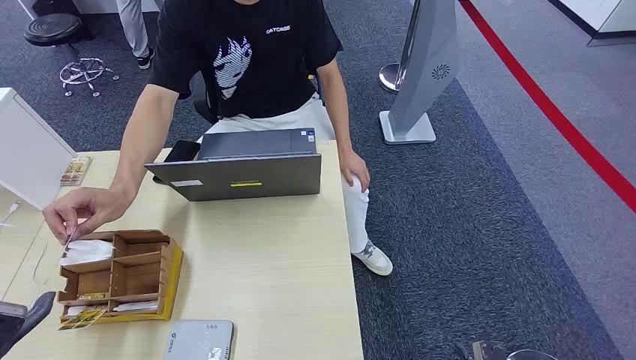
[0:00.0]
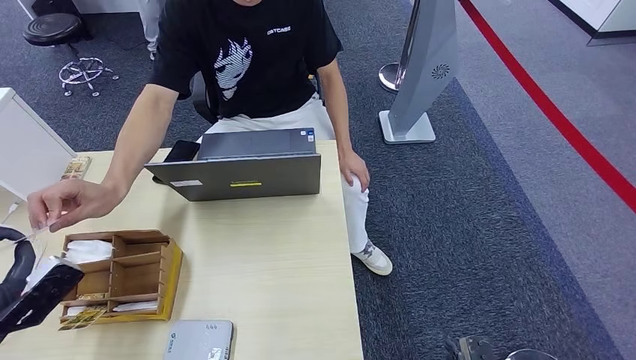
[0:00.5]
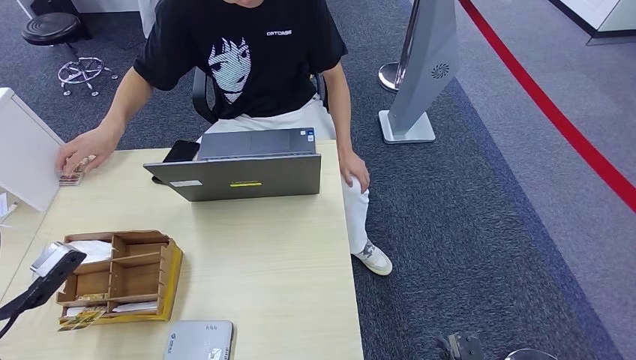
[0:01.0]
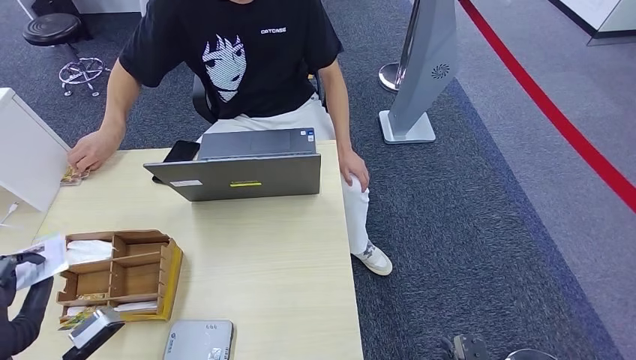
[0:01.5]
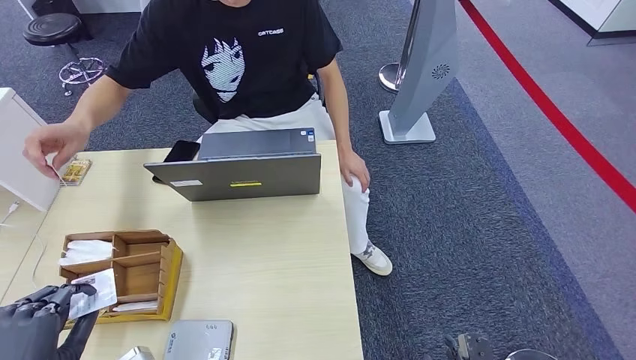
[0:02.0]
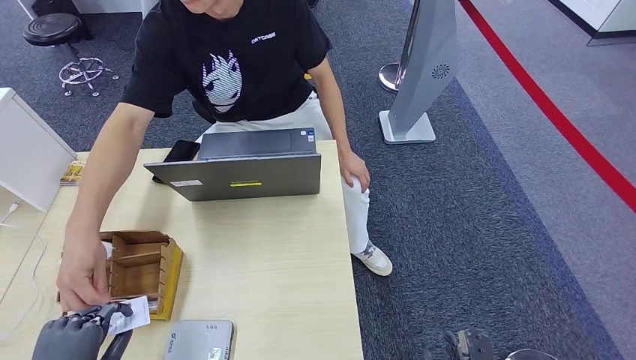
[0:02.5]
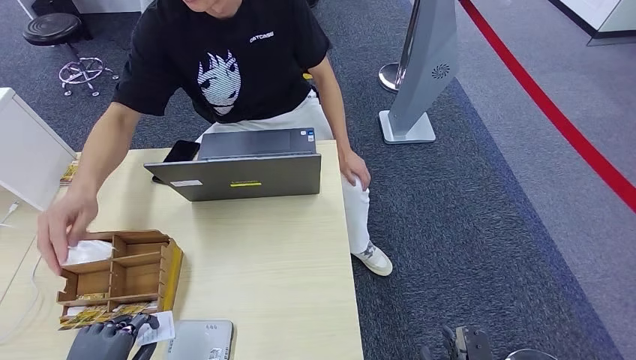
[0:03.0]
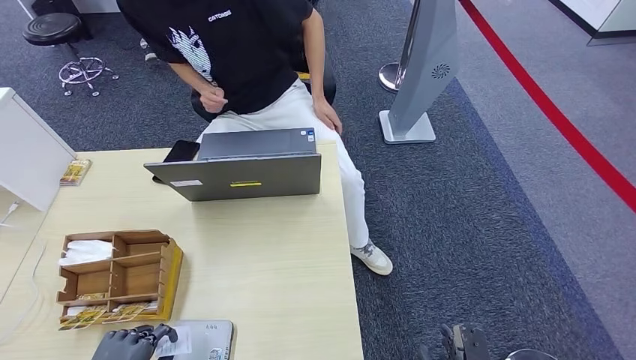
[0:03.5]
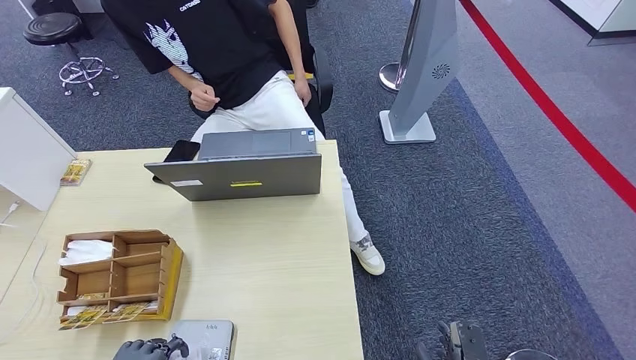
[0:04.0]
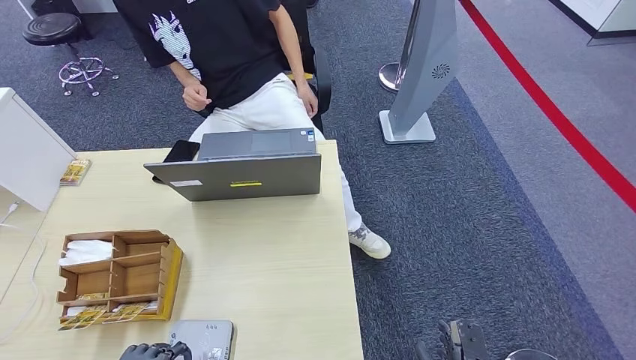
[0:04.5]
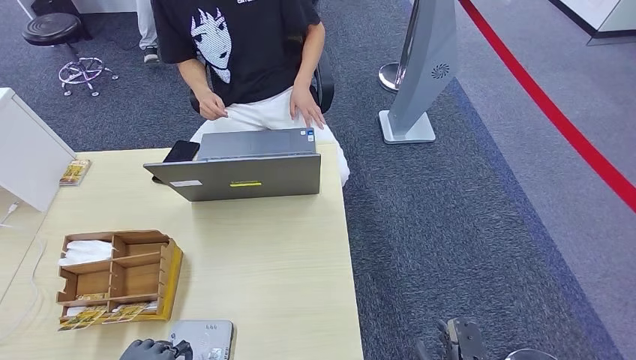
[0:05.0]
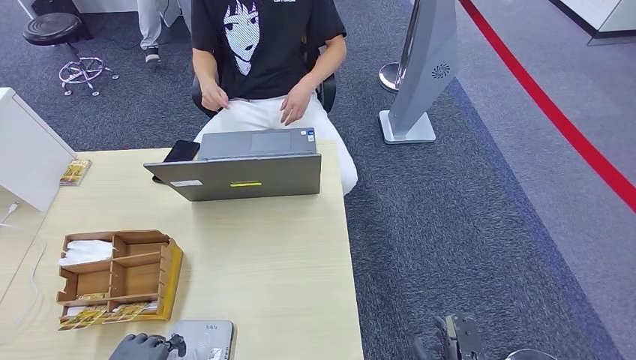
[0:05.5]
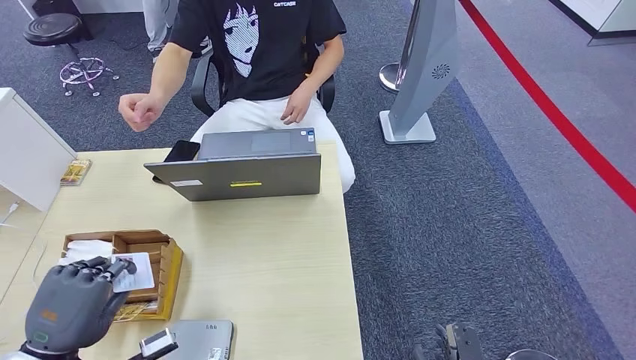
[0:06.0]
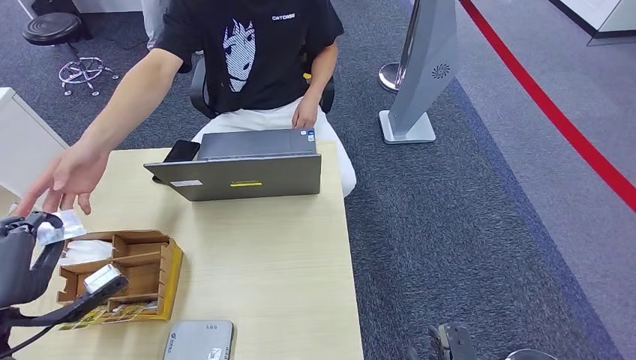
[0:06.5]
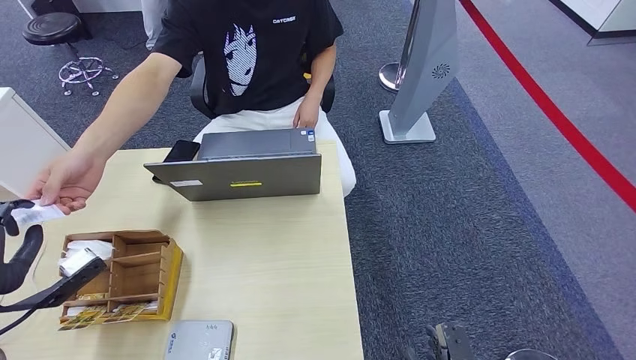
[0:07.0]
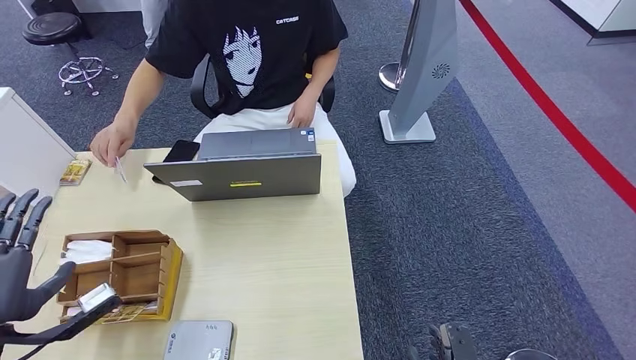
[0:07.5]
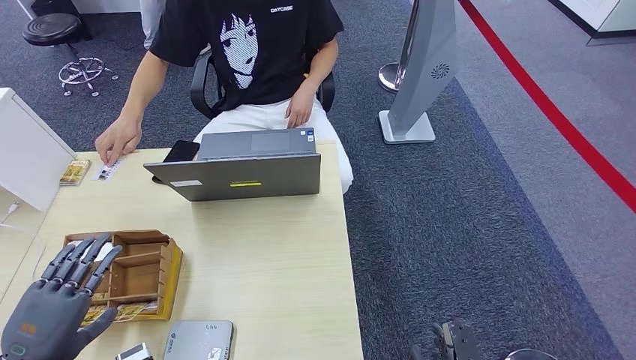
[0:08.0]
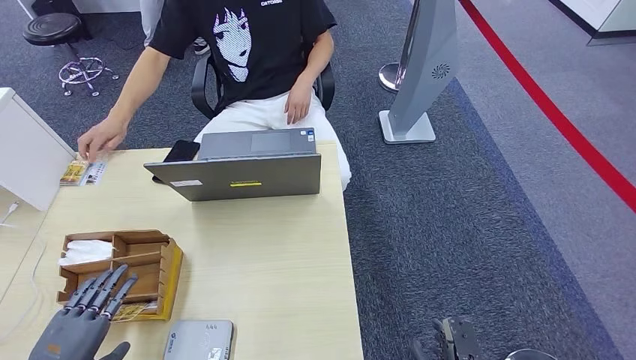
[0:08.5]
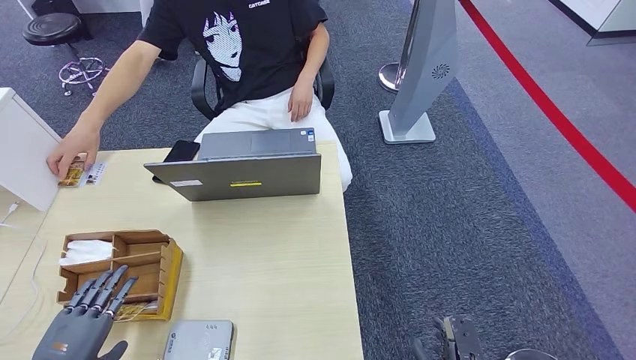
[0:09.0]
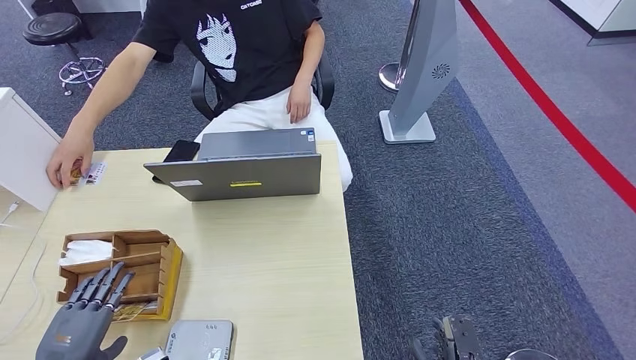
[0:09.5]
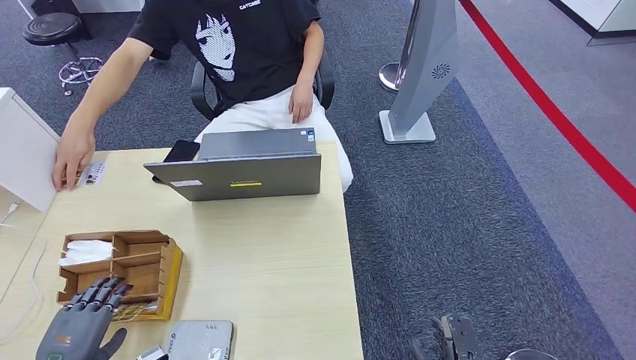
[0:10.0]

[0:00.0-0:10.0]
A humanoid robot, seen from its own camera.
Step, 0:00.0 to 0:01.5: Take the ID card from the person's hand.
Step, 0:02.0 to 0:06.0: Place the ID card on the card reader.
Step, 0:06.5 to 0:09.0: Hand the ID card to the person.
0:02.0 to 0:04.0: The left hand travels downward and backward by some 10 cm.
0:04.0 to 0:06.0: The left hand goes some 15 cm forward and upward.
0:06.0 to 0:08.0: The left hand reaches roughly 5 cm forward, then returns.
0:08.0 to 0:10.0: The left hand moves downward, approximately 5 cm.

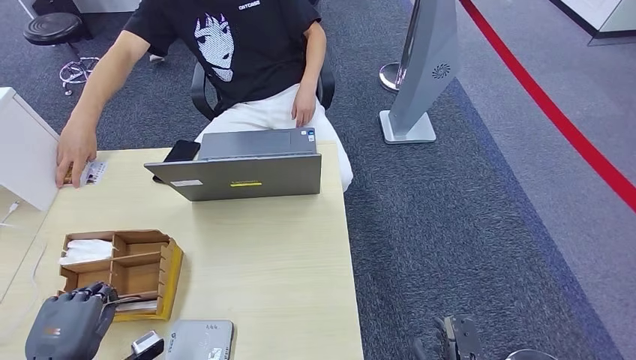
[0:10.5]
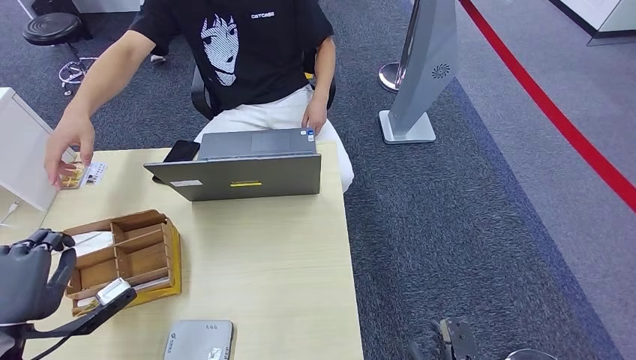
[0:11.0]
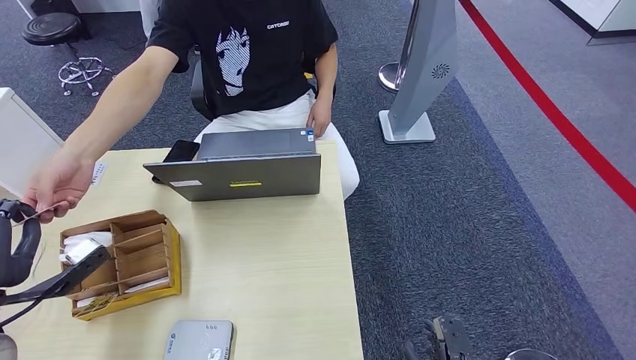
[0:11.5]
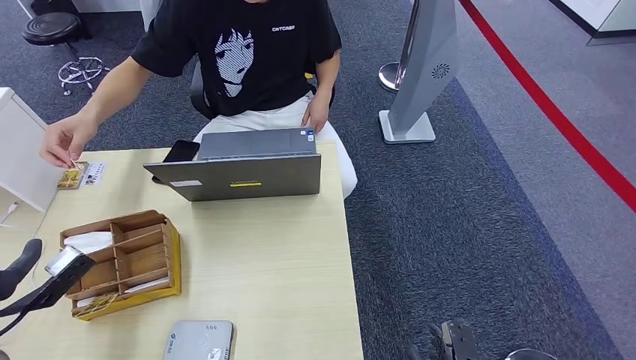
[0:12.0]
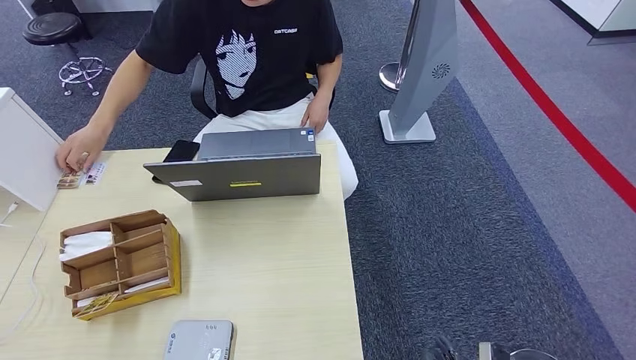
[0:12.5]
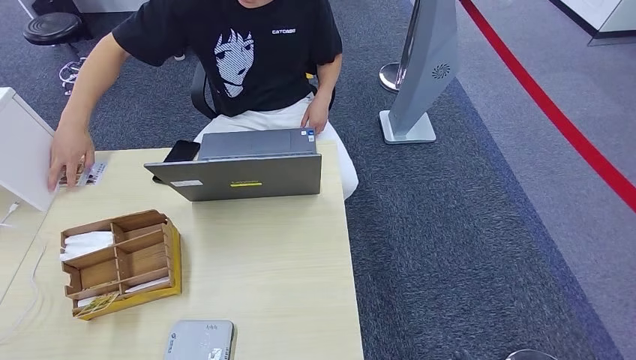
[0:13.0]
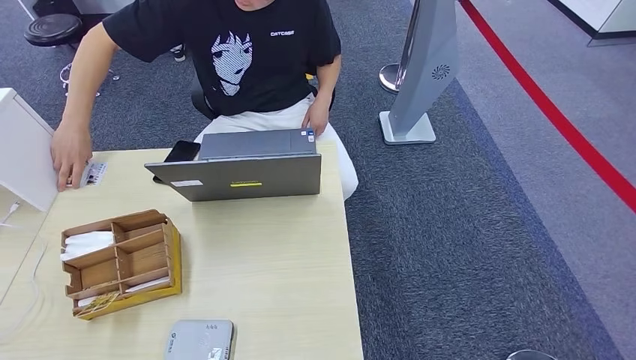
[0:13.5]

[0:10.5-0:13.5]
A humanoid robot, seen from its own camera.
Step, 0:11.0 to 0:13.5: Hand the room key to the person.
0:10.5 to 0:12.0: The left hand goes approximately 10 cm upward and forward.
0:12.0 to 0:13.5: The right hand moves backward, approximately 5 cm. Meanwhile the left hand is displaced backward and downward by some 30 cm.

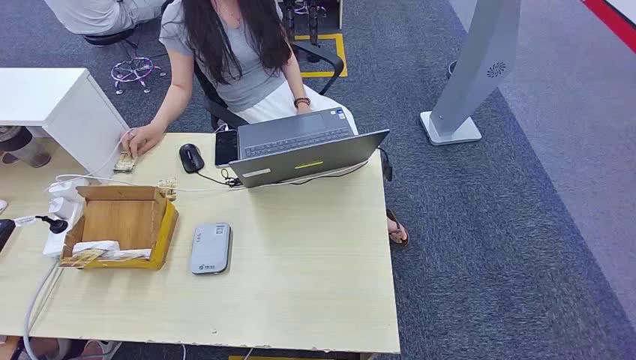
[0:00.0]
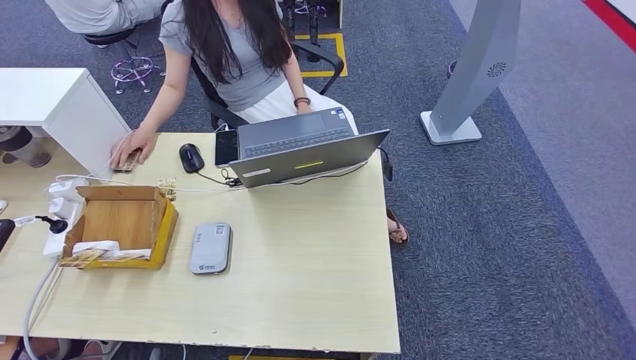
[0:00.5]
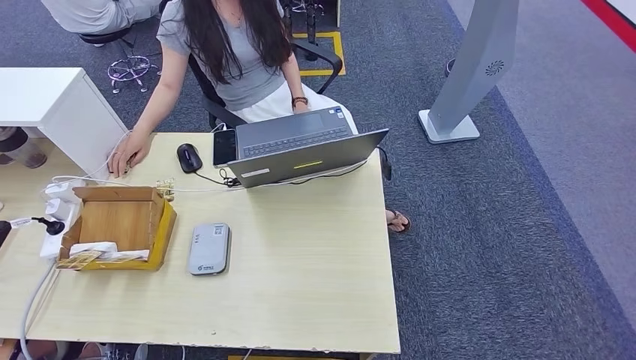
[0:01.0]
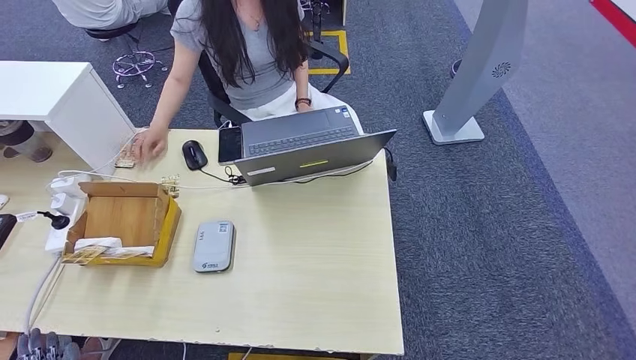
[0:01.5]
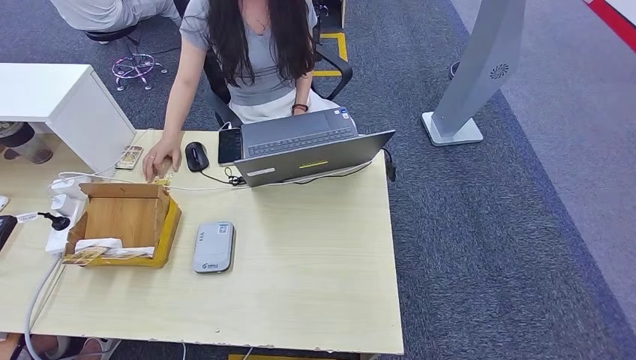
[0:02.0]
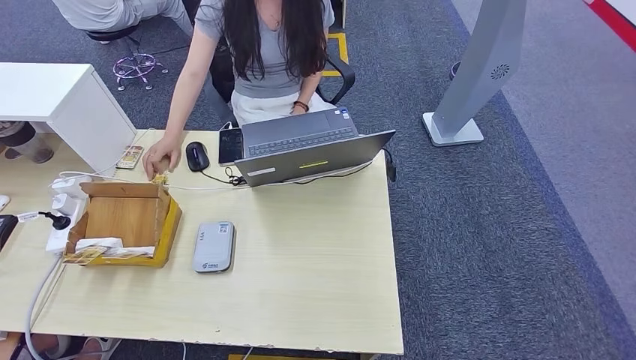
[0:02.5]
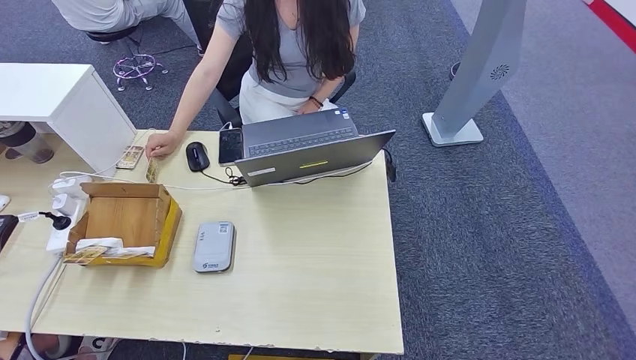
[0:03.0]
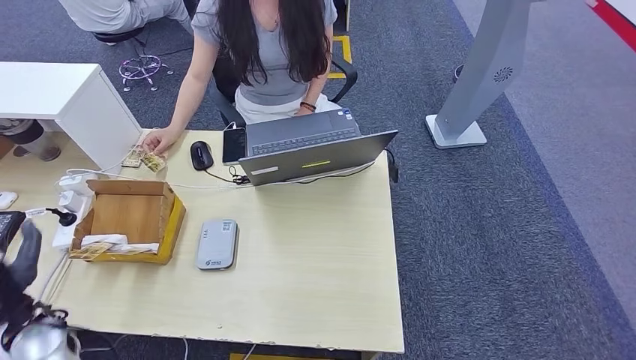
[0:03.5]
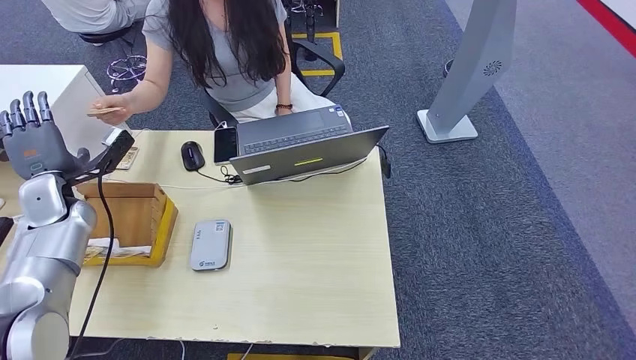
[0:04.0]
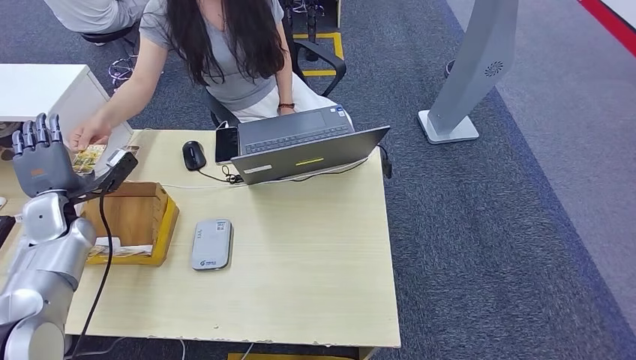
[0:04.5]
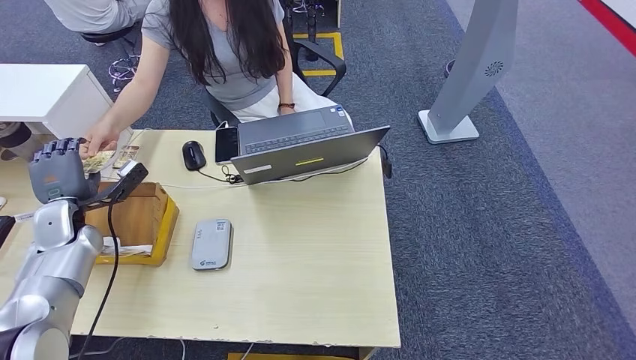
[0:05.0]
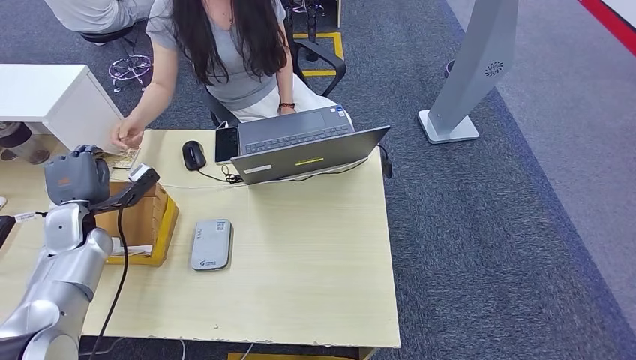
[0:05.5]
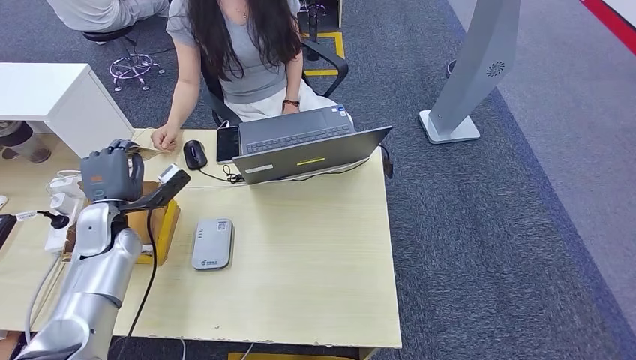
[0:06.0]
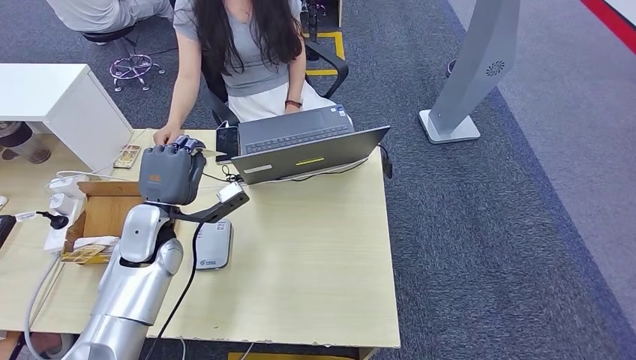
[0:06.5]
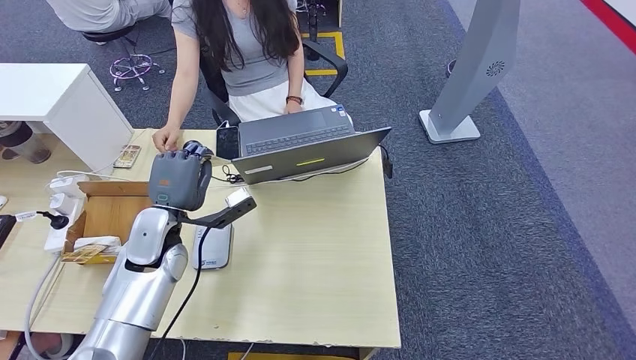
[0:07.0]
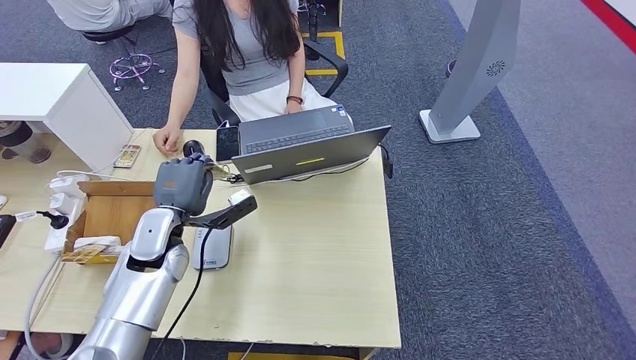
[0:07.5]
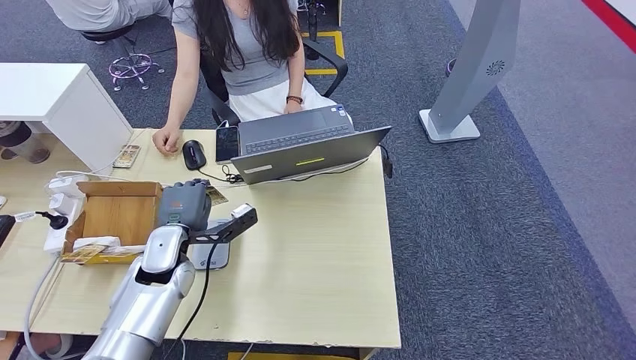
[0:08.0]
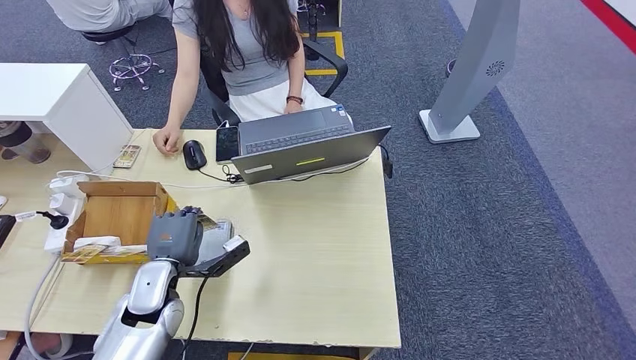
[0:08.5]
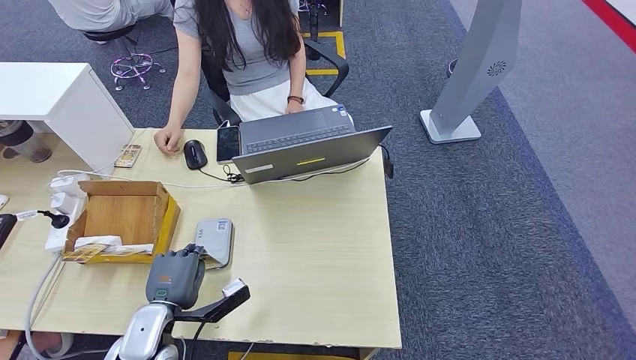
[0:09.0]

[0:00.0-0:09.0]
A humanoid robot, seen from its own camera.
Step, 0:00.0 to 0:05.5: Take the ID card from the person's hand.
0:07.0 to 0:09.0: The left hand goes approximately 15 cm backward and downward.
